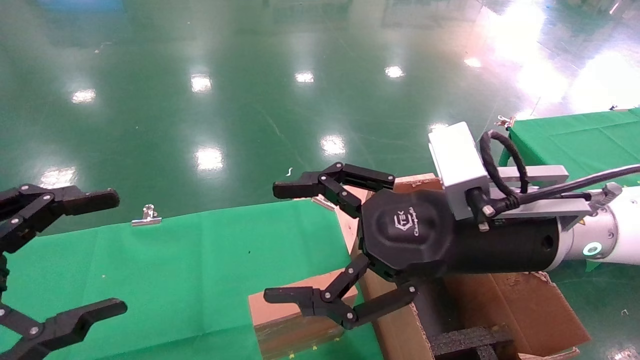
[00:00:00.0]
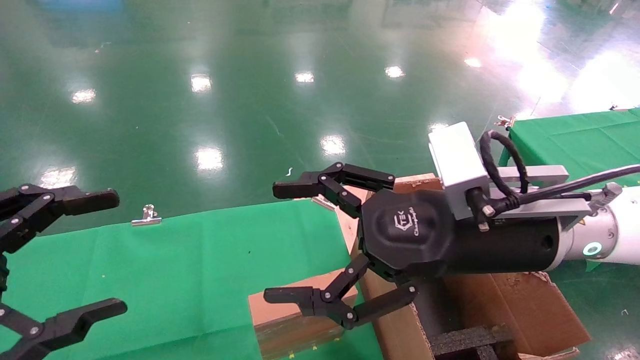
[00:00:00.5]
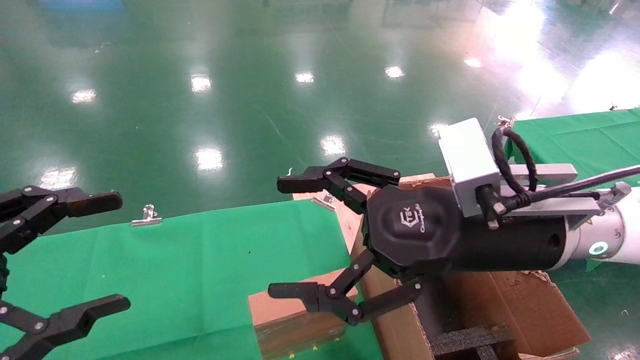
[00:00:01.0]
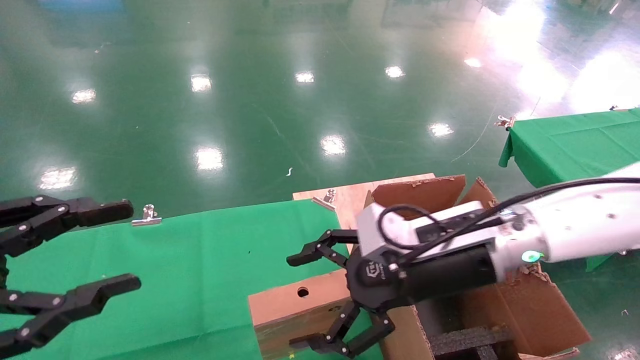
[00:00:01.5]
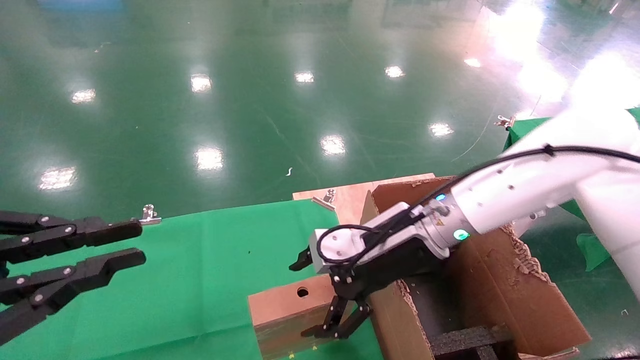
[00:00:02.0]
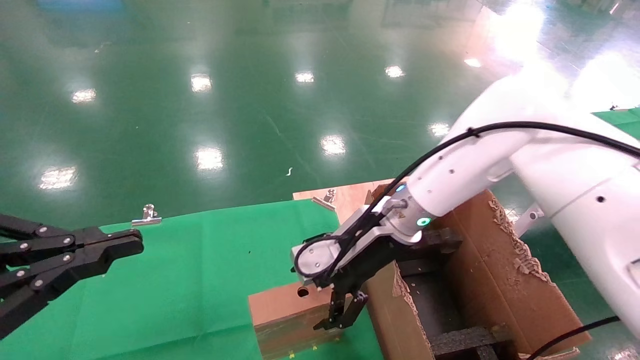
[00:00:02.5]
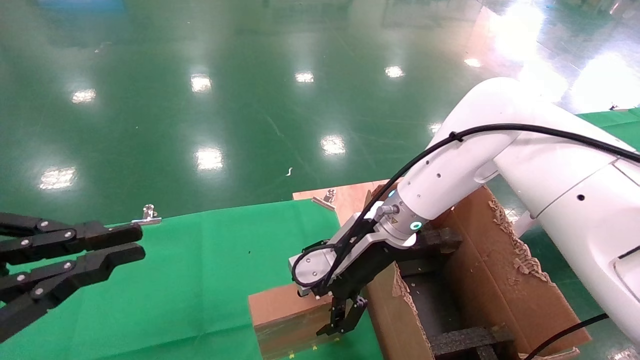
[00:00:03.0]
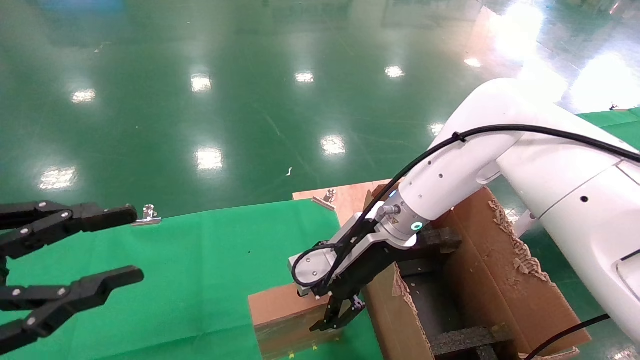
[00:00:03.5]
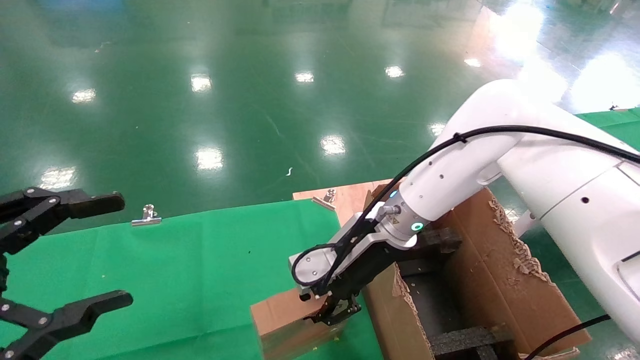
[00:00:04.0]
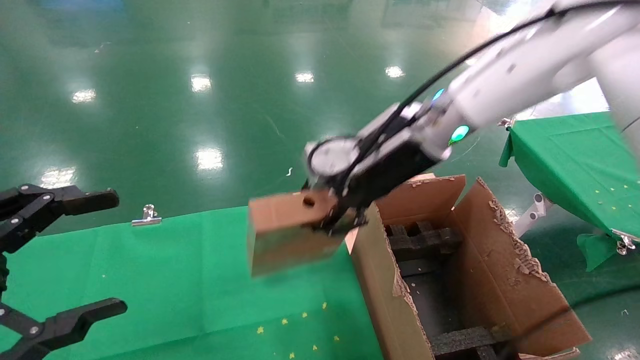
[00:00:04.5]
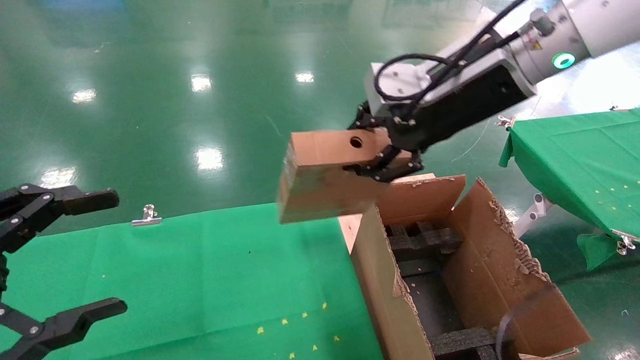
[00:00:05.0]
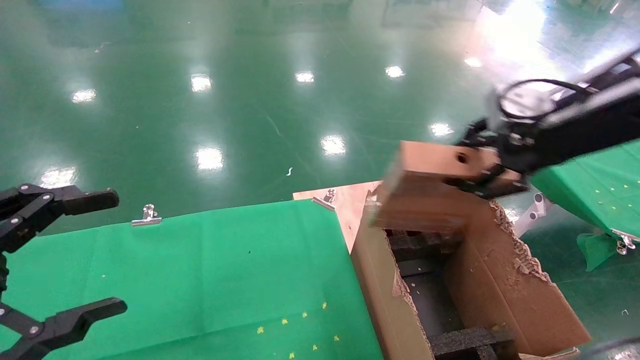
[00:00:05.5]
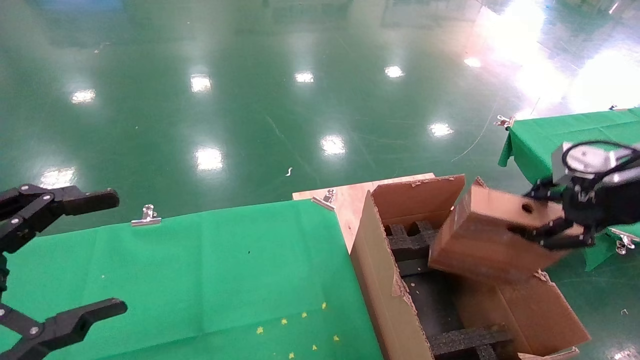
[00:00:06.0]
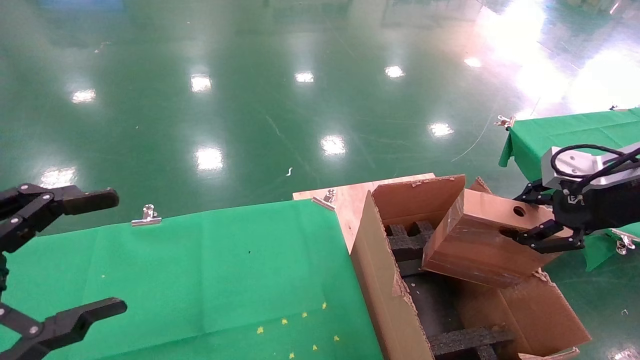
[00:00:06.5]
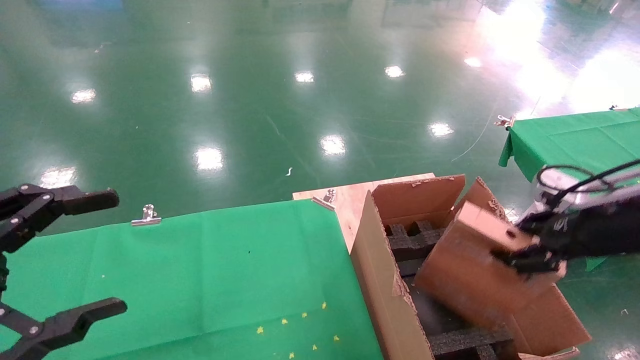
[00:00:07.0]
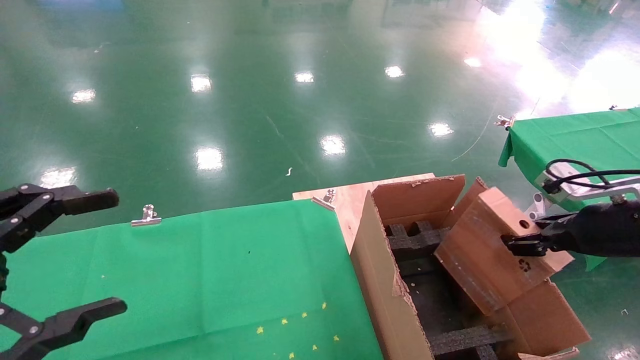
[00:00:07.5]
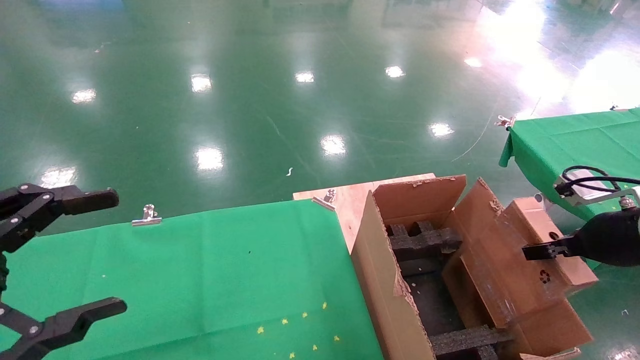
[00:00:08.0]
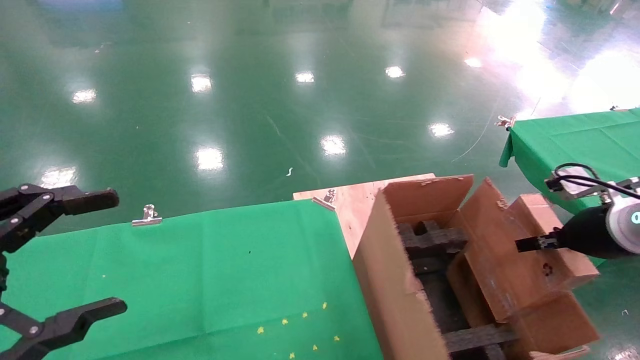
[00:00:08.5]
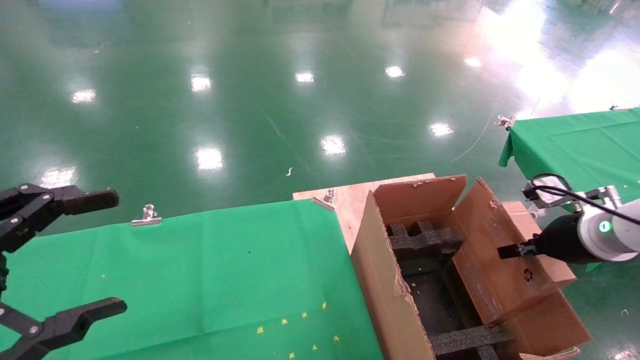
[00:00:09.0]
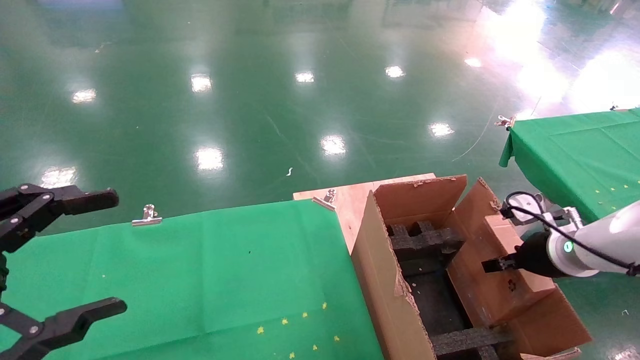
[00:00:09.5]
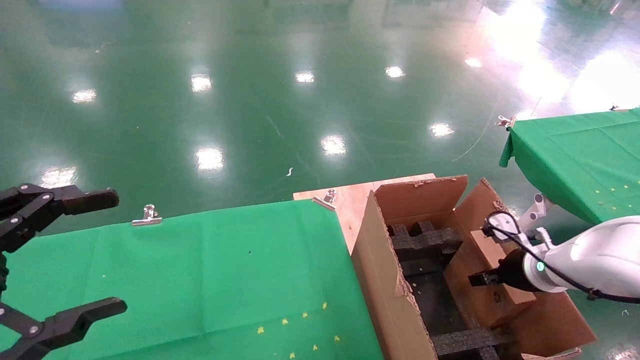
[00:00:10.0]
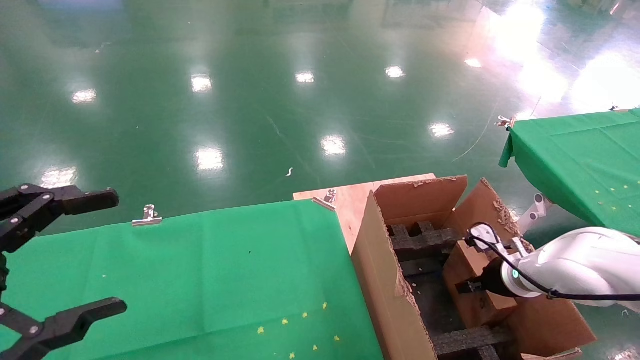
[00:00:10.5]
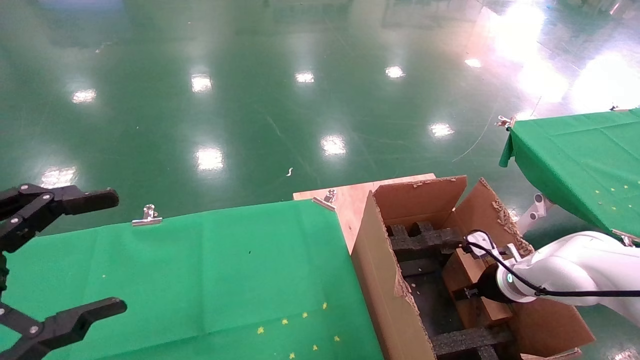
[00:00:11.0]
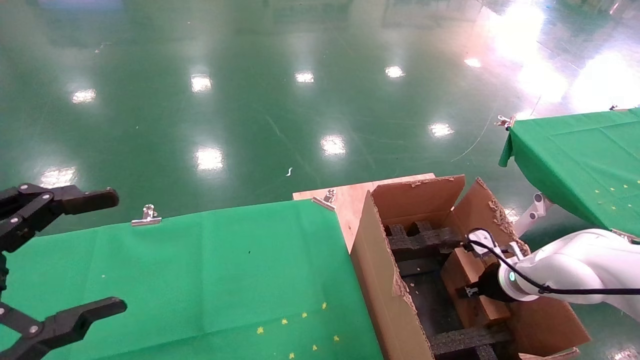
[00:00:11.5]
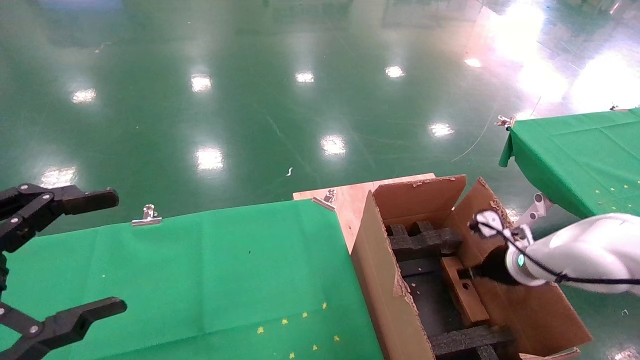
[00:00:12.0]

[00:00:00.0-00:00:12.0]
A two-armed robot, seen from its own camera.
Task of the whole recording: using a robotic arm to pick up a cardboard box and palace it the carton.
Step, 00:00:01.5 to 00:00:04.0: Pick up the mouse and the power cord paper box.
00:00:00.0 to 00:00:02.0: The right gripper moves forward and downward, roughly 15 cm; the left gripper closes its fingers.
00:00:02.0 to 00:00:04.0: The left gripper opens its fingers. The right gripper closes its fingers.
00:00:04.0 to 00:00:06.0: The right gripper goes about 30 cm to the right and backward.
00:00:06.0 to 00:00:08.0: The right gripper shifts some 10 cm downward.
00:00:08.0 to 00:00:10.0: The right gripper travels downward and forward by some 15 cm.
00:00:10.0 to 00:00:12.0: The right gripper opens up.

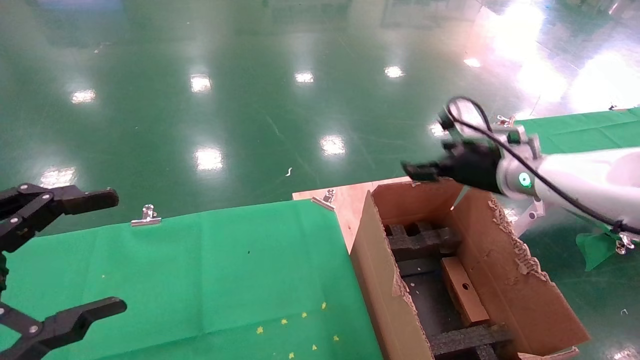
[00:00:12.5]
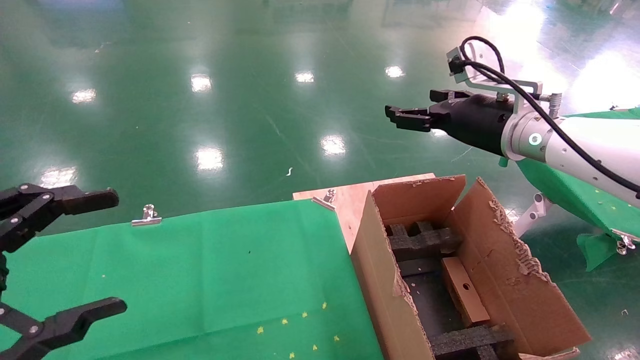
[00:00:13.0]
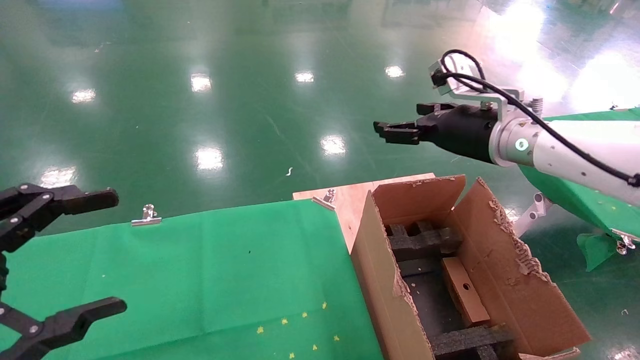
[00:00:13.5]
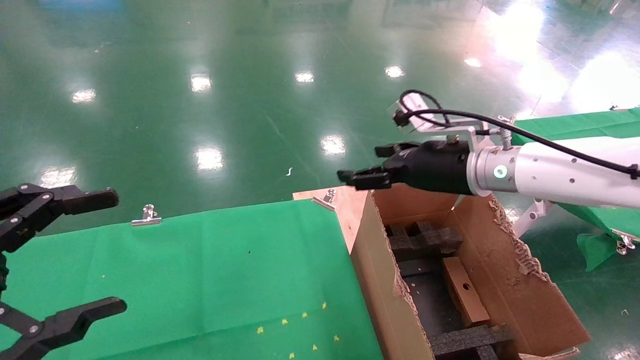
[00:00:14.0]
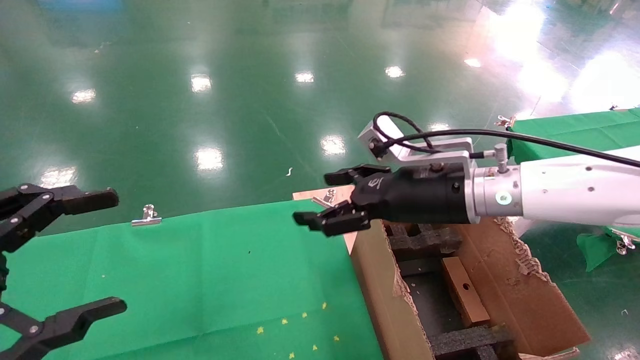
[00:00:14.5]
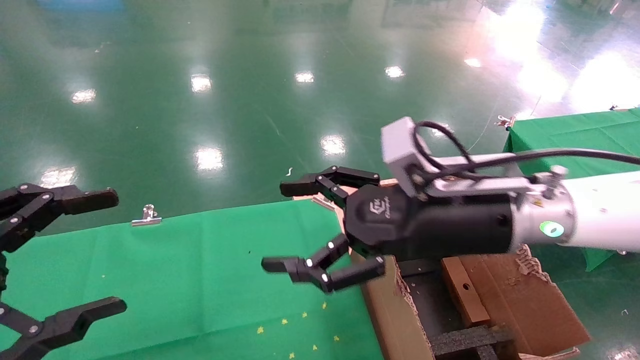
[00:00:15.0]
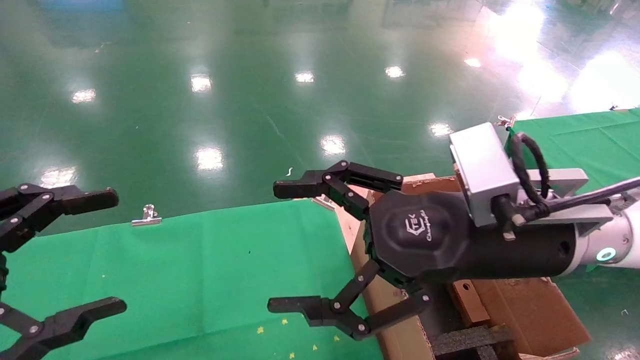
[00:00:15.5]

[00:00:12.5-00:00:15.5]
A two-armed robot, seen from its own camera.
Task of the whole recording: using a robotic arm to pick up a cardboard box and palace it the carton.
00:00:12.5 to 00:00:14.0: The right gripper goes roughly 10 cm to the left.
00:00:14.0 to 00:00:15.5: The right gripper shifts roughly 15 cm backward.
